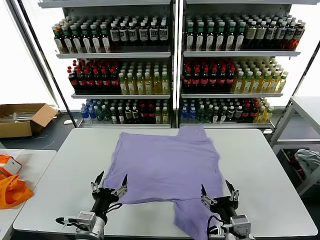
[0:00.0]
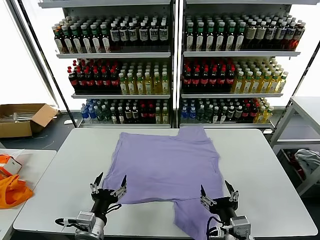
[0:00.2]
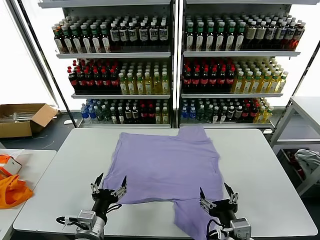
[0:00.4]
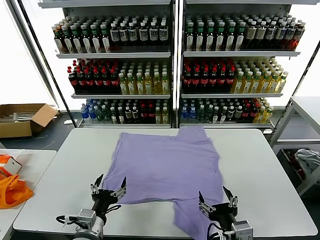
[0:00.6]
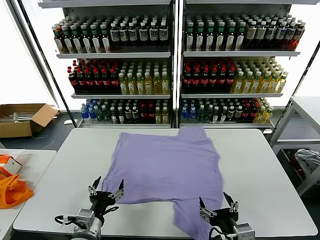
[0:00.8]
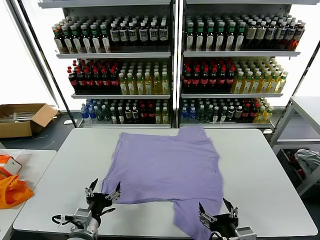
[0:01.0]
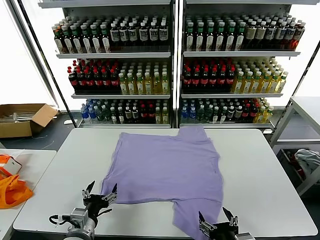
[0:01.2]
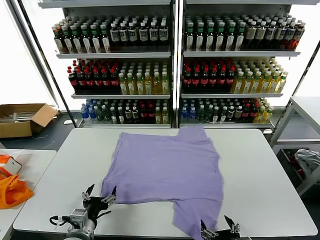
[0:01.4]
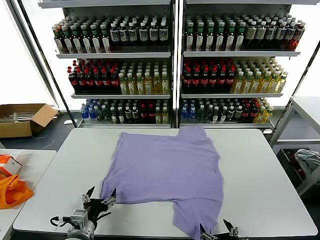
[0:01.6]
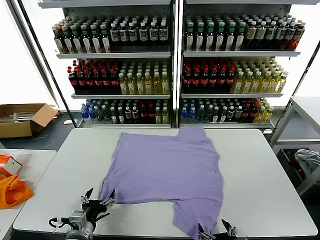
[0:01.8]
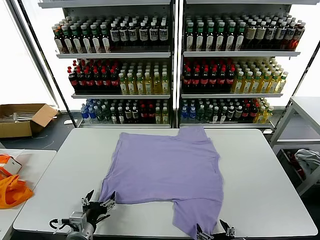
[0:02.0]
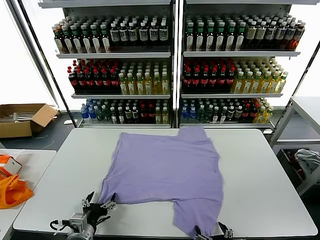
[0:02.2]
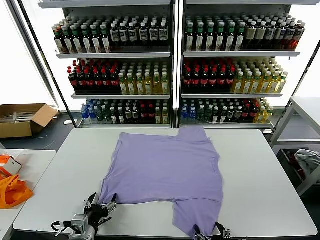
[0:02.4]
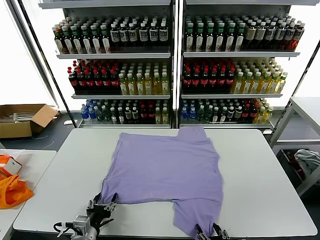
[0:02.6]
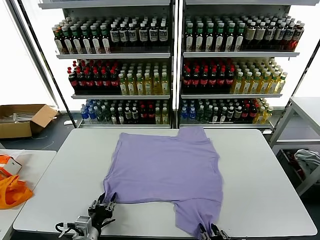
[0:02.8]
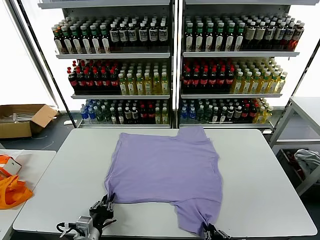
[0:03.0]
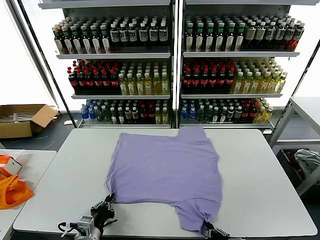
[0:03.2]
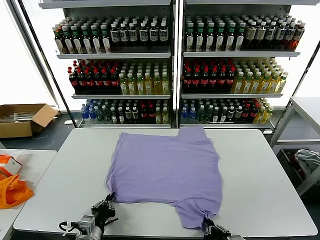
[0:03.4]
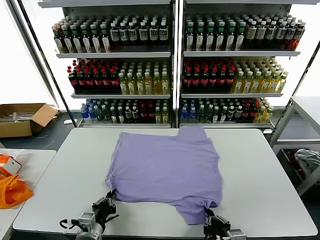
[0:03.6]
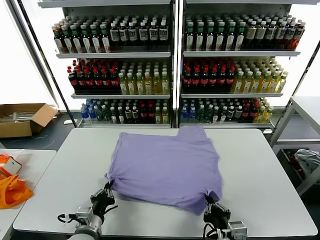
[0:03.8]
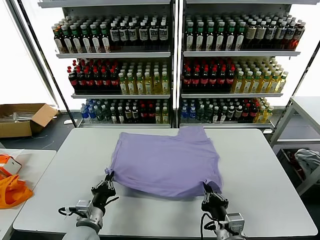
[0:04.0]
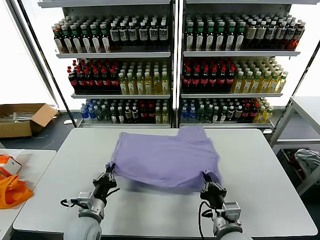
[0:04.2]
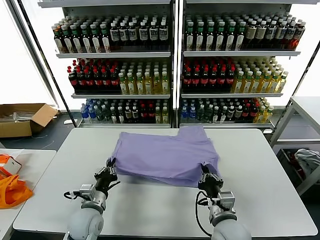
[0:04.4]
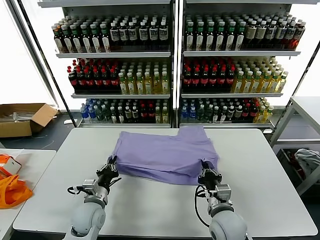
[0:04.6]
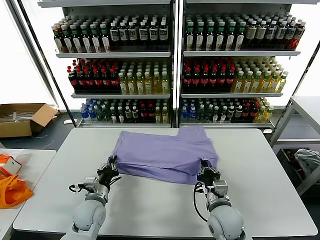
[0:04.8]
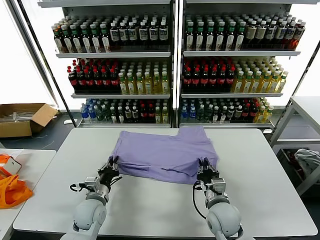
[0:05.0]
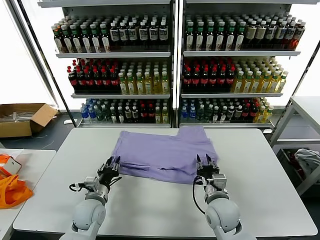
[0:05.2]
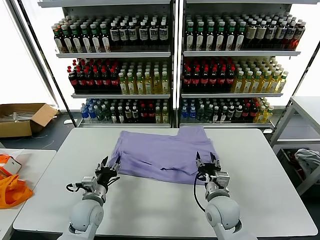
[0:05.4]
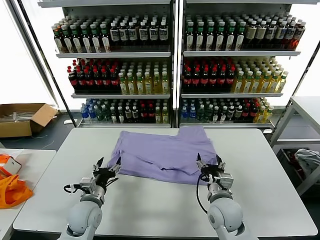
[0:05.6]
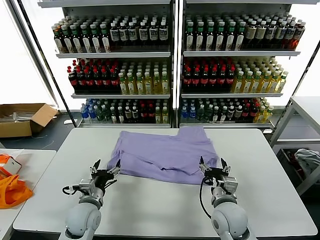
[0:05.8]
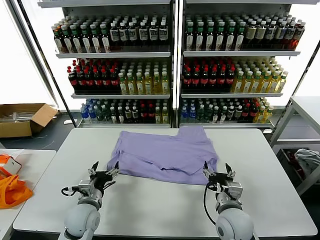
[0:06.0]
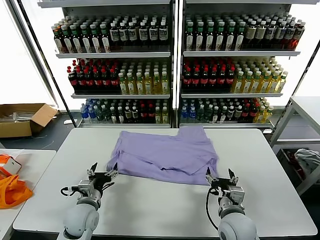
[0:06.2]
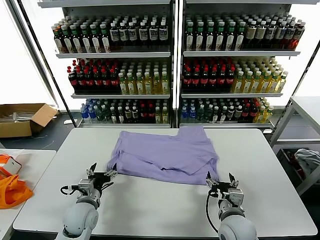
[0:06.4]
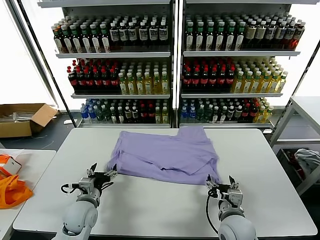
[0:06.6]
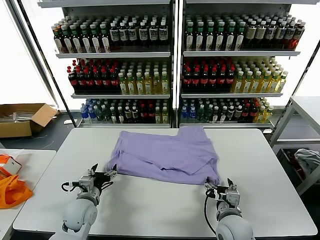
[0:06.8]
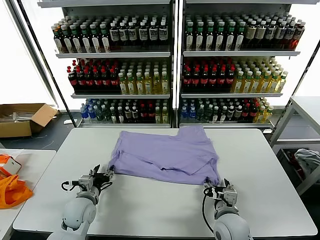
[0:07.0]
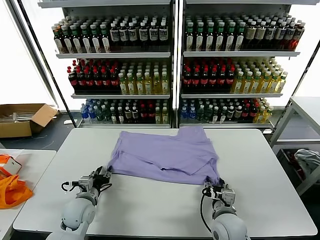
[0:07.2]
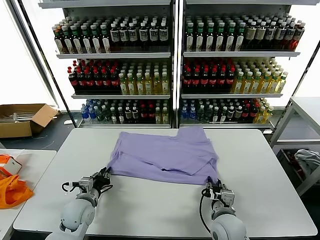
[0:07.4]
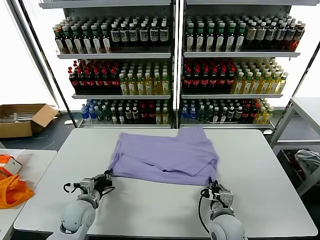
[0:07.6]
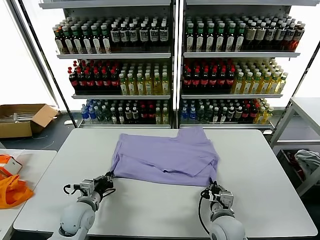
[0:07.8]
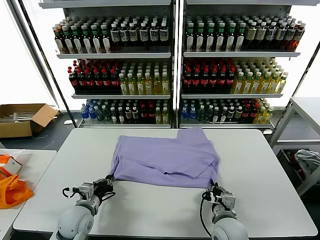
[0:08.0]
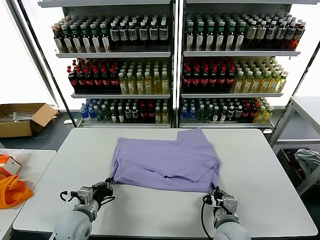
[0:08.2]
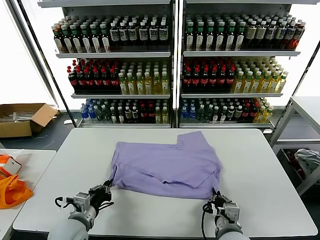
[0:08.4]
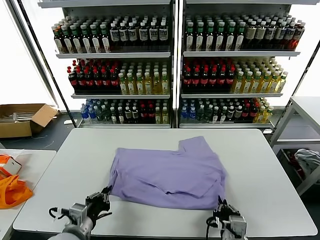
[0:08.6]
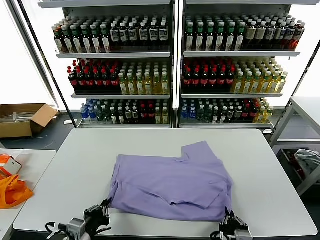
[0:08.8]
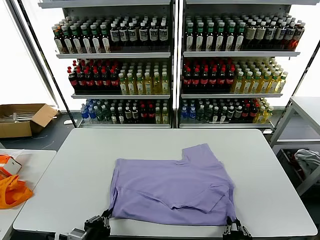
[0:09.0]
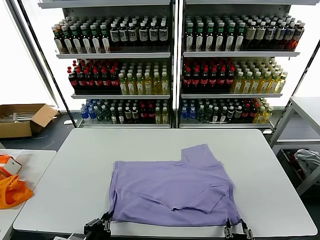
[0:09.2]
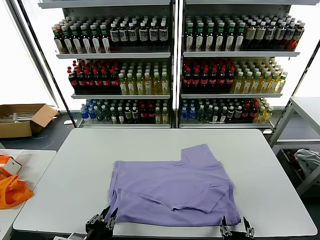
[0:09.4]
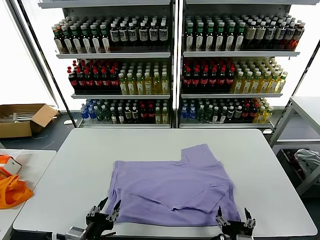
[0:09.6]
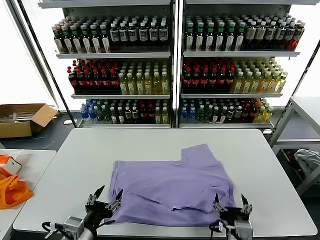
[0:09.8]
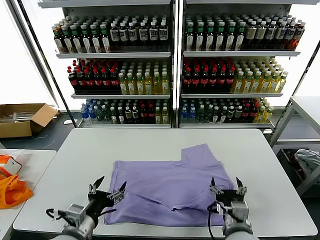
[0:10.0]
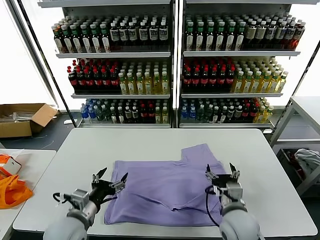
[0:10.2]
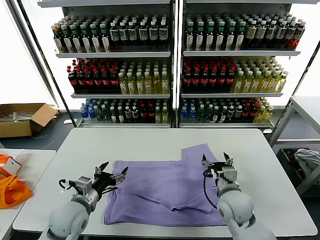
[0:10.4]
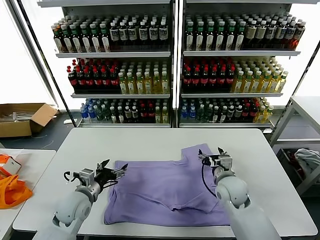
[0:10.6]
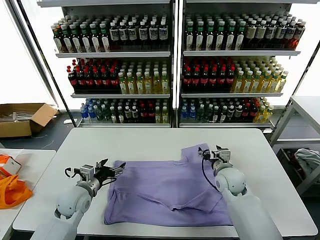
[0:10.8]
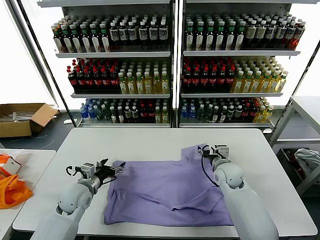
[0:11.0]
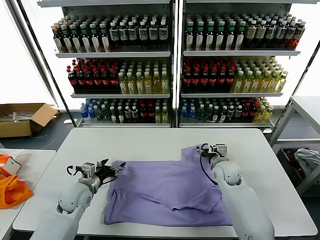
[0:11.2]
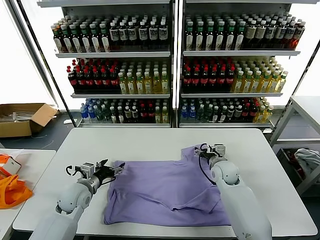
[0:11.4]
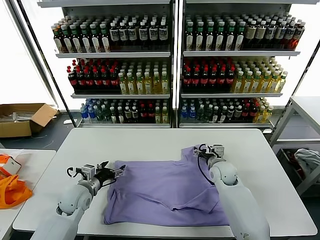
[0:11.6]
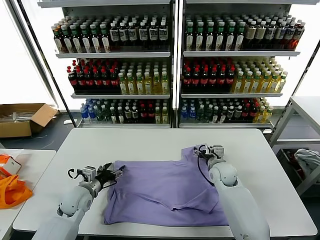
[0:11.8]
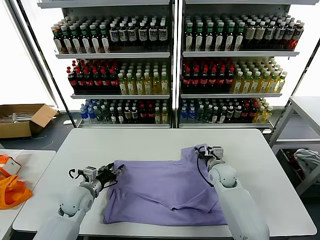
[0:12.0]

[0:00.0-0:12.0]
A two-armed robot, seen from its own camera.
Task of the whole recording: fold and organize the clothes.
Step, 0:00.0 to 0:03.0: use both grippers simultaneously to clamp the lower edge of the clothing fabric.
Step, 0:03.2 to 0:05.2: use both grippers to drag the lower edge of the fabric forward and fold it over the upper edge.
Step, 0:05.4 to 0:09.4: Drag the clothes downward with both gripper.
0:01.6 to 0:03.0: The left gripper closes; the right gripper closes its fingers.
0:03.0 to 0:04.4: The left gripper shifts roughly 10 cm forward; the right gripper travels forward by about 15 cm.
0:04.4 to 0:06.0: The left gripper opens up. The right gripper opens up.
0:06.0 to 0:07.6: The left gripper closes. Meanwhile the right gripper closes up.
0:07.6 to 0:09.0: The grippers both shift backward by approximately 15 cm.
0:09.0 to 0:10.4: The right gripper moves forward, approximately 25 cm, and opens up; the left gripper travels forward by about 15 cm, and opens its fingers.
0:10.4 to 0:12.0: The grippers both shift forward and downward by approximately 10 cm. The left gripper closes its fingers.

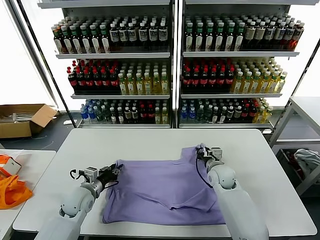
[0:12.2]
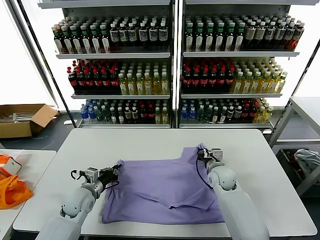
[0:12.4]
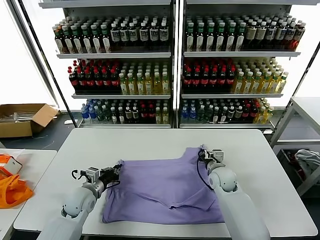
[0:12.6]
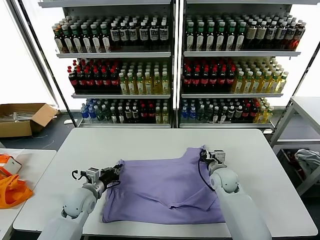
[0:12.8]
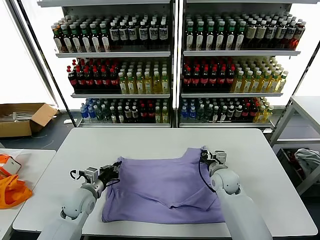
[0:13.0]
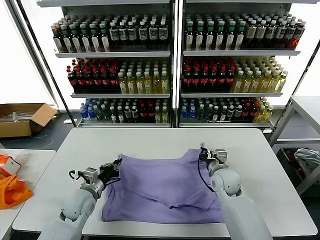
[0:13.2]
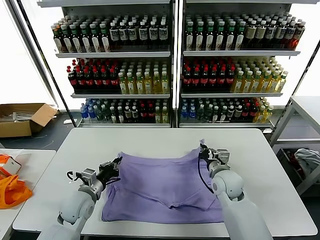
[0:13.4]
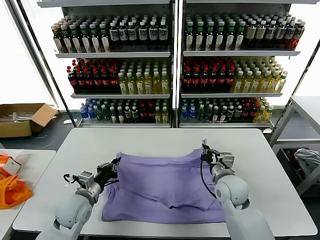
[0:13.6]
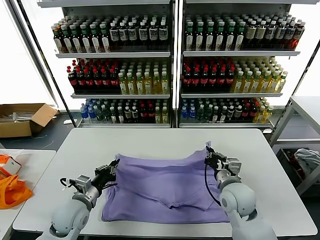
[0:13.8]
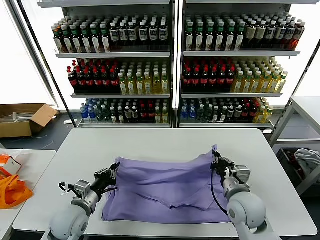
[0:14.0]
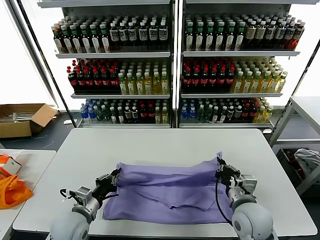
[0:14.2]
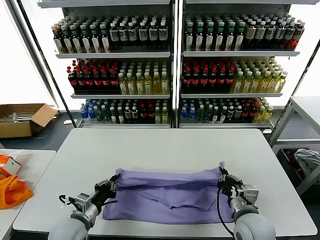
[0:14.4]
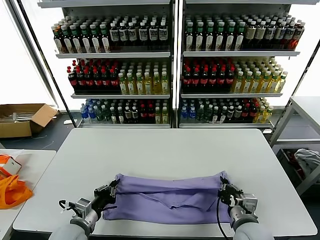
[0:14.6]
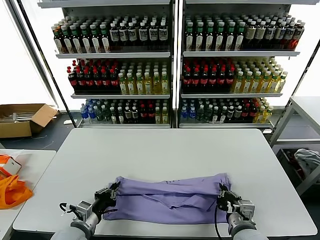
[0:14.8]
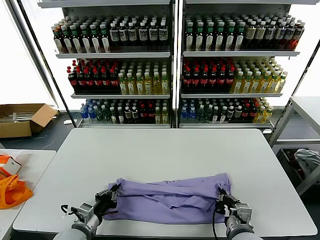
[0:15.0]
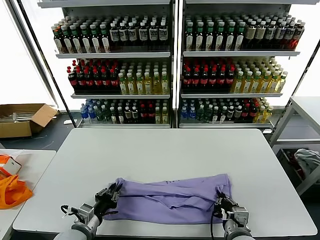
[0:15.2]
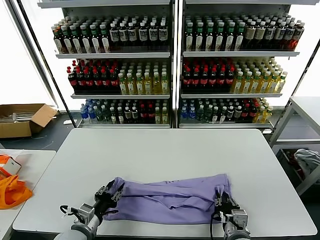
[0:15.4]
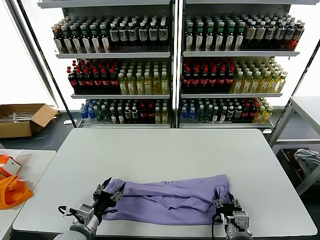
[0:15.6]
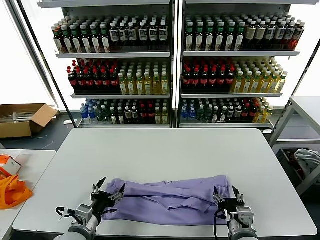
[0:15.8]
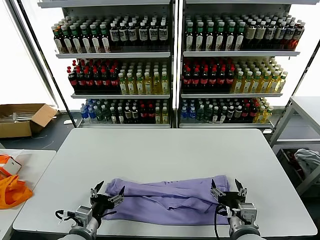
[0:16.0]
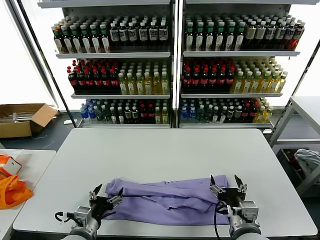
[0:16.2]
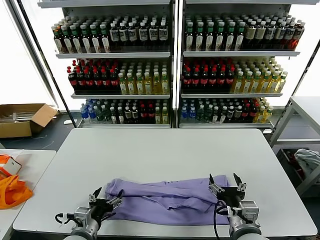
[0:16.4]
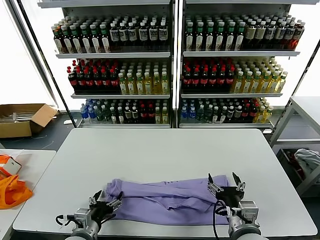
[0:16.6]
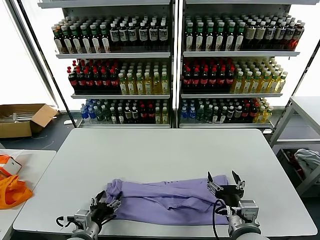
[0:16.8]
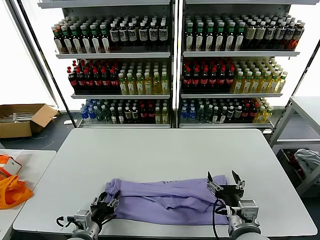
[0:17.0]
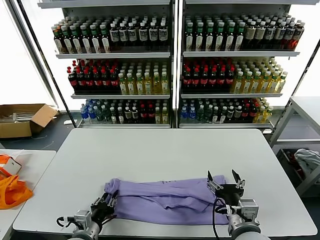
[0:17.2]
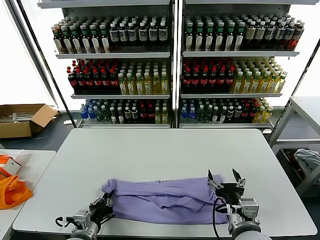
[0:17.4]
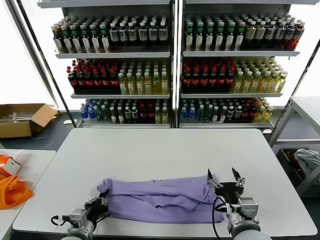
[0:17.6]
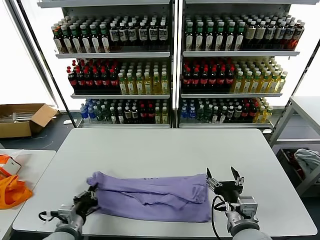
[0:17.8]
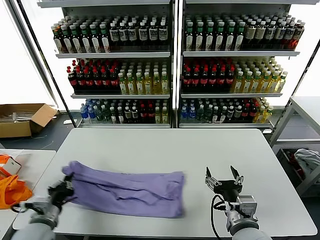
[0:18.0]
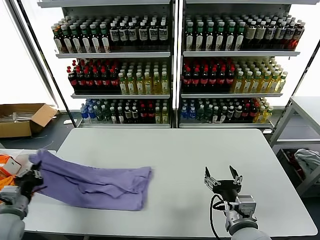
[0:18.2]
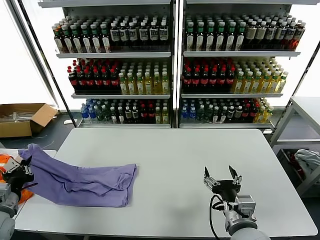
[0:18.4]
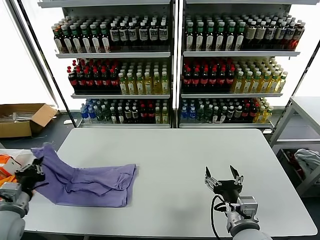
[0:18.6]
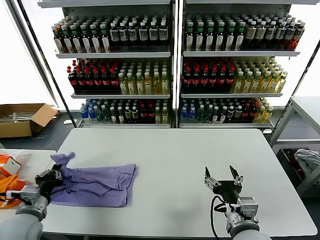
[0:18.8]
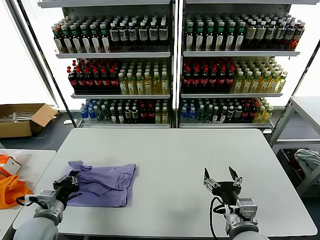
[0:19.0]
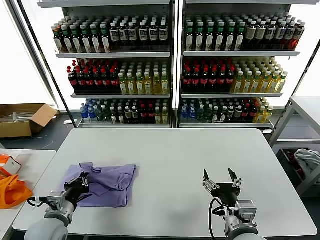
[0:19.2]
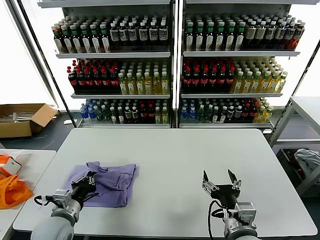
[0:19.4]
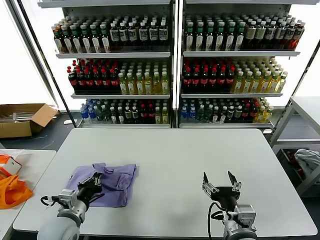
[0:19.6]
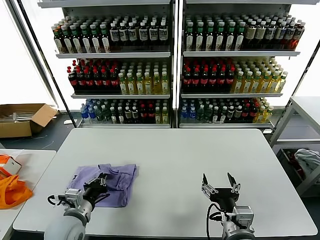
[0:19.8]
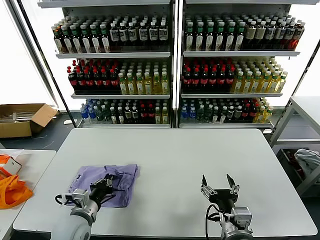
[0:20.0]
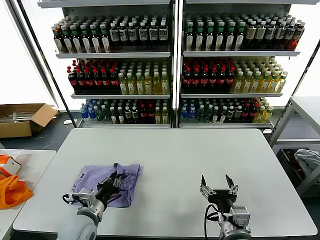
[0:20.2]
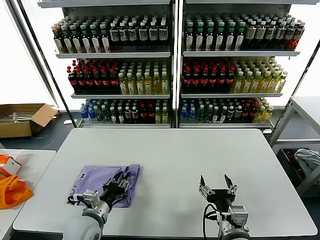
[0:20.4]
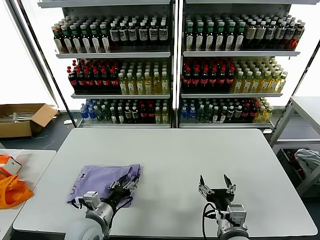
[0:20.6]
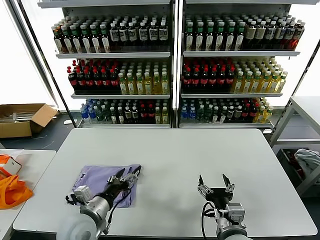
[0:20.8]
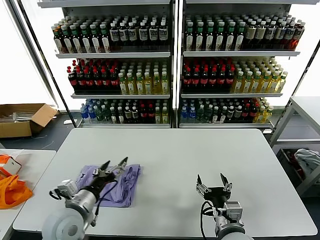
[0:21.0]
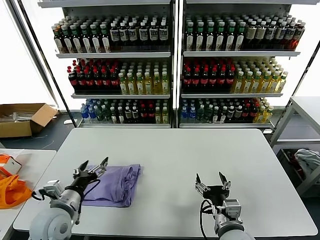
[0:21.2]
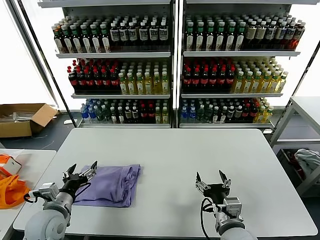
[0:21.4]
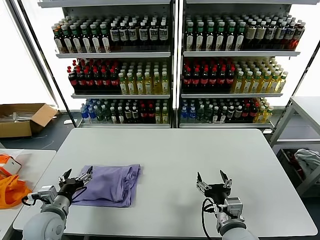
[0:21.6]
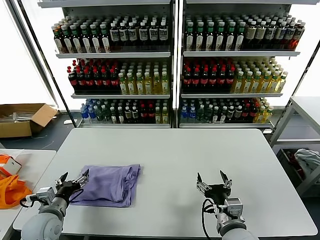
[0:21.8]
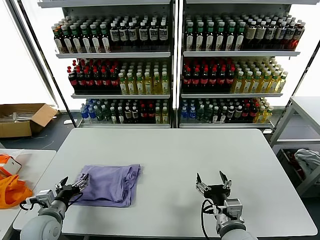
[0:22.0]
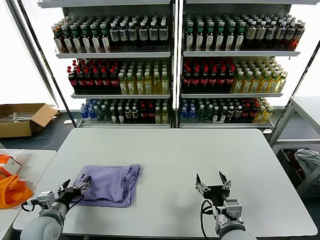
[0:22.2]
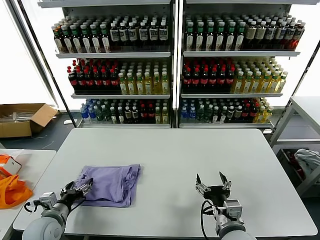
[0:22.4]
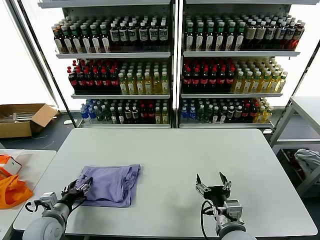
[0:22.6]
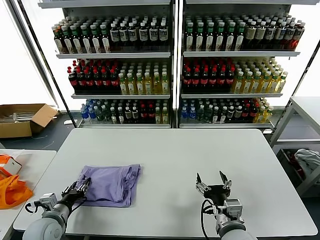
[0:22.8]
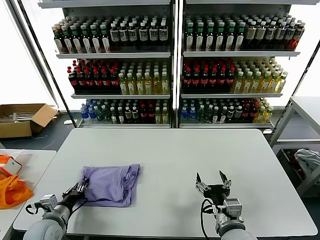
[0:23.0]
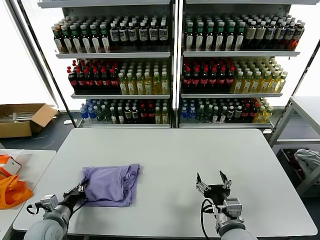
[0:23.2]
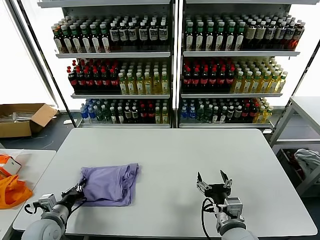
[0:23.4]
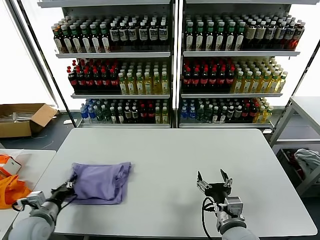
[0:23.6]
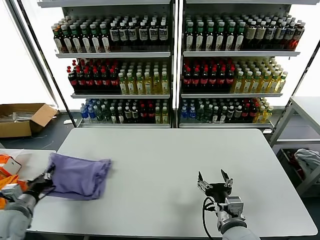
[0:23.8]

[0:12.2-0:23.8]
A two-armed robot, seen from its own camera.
Task of the whole recording: fold and organize the clothes.
Step, 0:12.6 to 0:15.6: use both grippers to drag the upper edge of the fabric backward and fold it over the lower edge.
Step, 0:16.0 to 0:17.4: use the left gripper to clamp the left edge of the fabric.
Step, 0:17.6 to 0:20.6: use the left gripper to drag the left edge of the fabric to the left and folds it over the right edge.
0:12.2 to 0:13.6: The right gripper moves backward and upward, roughly 10 cm, and closes, while the left gripper closes its fingers.
0:13.6 to 0:15.0: The left gripper shifts approximately 10 cm backward; the right gripper moves backward, some 15 cm.
0:15.0 to 0:16.6: The right gripper shifts some 5 cm upward, and opens its fingers, while the left gripper opens.
0:16.6 to 0:18.0: The left gripper shifts about 10 cm to the left, and closes its fingers.
0:18.0 to 0:19.4: The left gripper moves about 10 cm to the left and comes back.
0:19.4 to 0:21.0: The left gripper travels to the right by some 5 cm, and opens.
0:21.0 to 0:22.4: The left gripper moves to the left and downward, some 15 cm.
0:22.4 to 0:23.8: The left gripper heads to the left, covering about 5 cm, and closes its fingers.
